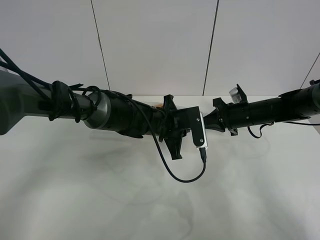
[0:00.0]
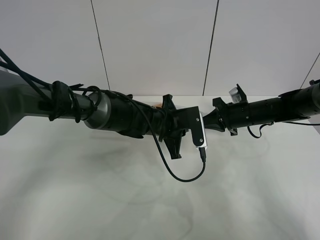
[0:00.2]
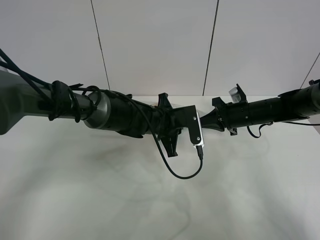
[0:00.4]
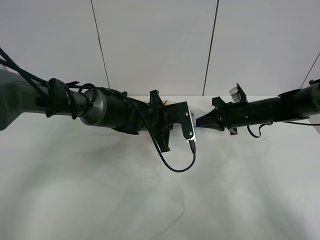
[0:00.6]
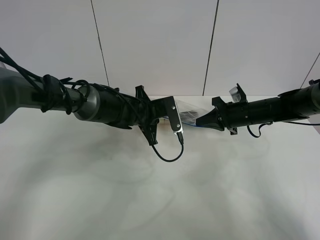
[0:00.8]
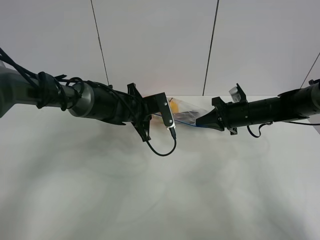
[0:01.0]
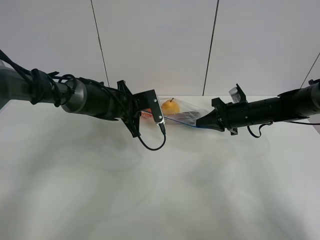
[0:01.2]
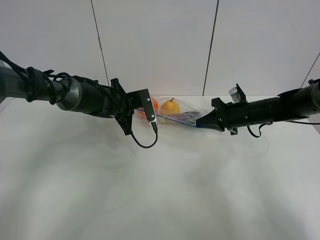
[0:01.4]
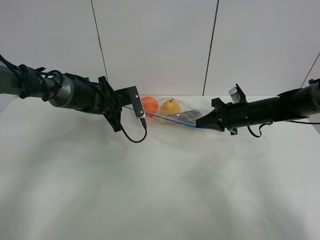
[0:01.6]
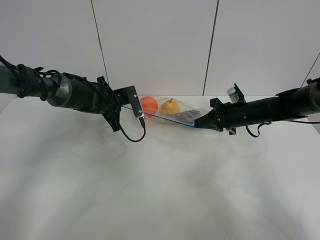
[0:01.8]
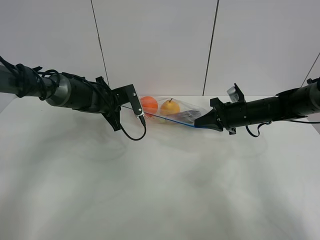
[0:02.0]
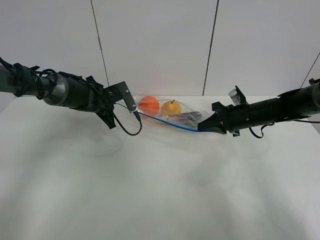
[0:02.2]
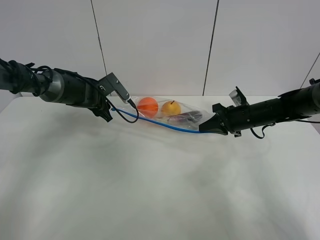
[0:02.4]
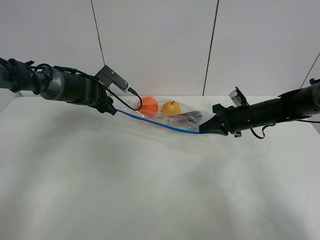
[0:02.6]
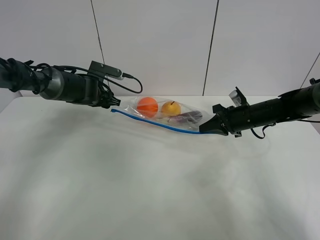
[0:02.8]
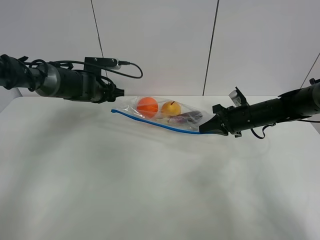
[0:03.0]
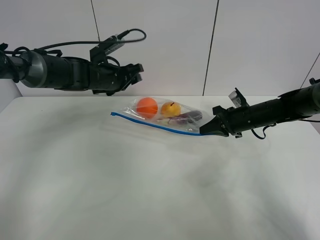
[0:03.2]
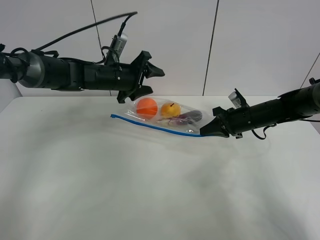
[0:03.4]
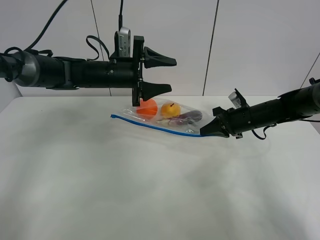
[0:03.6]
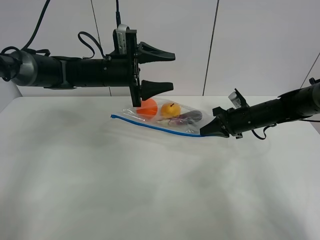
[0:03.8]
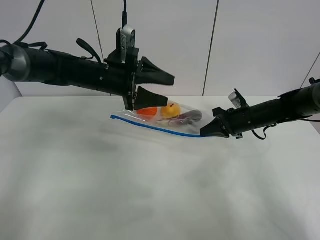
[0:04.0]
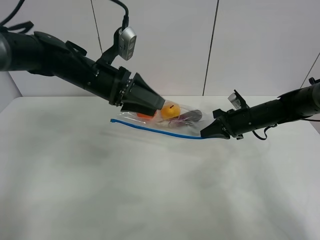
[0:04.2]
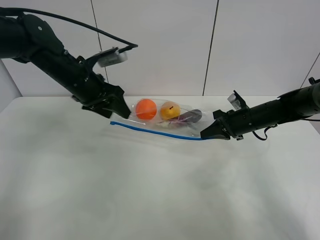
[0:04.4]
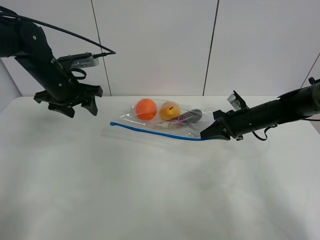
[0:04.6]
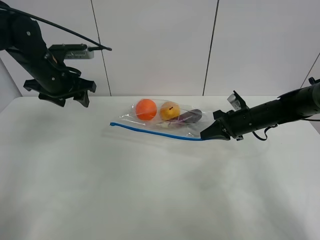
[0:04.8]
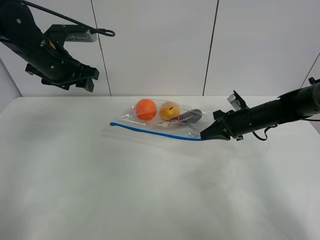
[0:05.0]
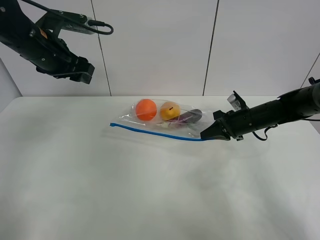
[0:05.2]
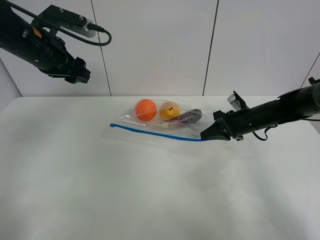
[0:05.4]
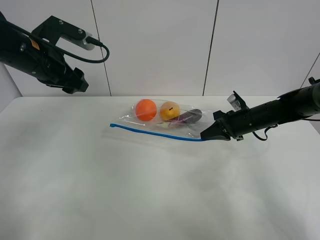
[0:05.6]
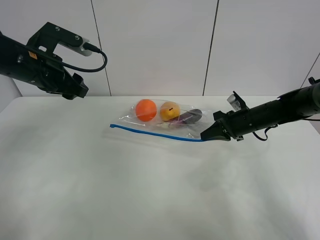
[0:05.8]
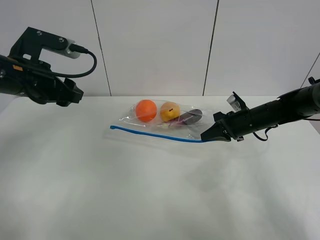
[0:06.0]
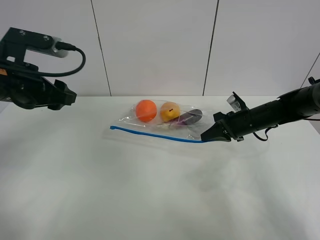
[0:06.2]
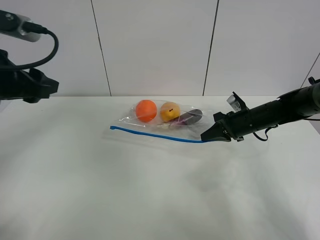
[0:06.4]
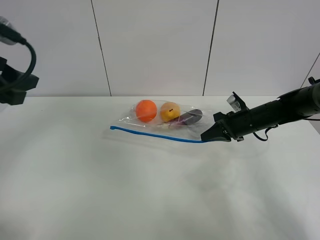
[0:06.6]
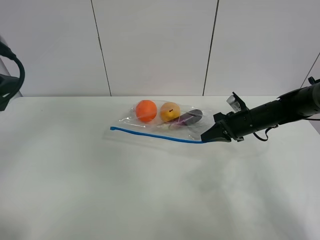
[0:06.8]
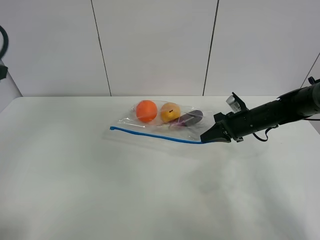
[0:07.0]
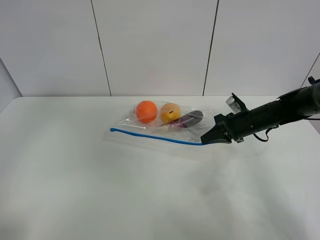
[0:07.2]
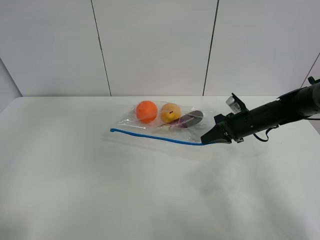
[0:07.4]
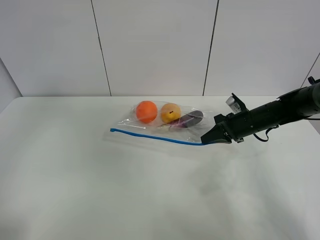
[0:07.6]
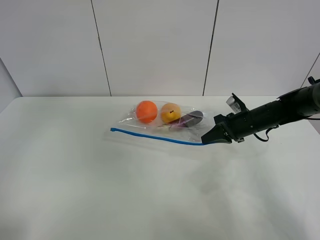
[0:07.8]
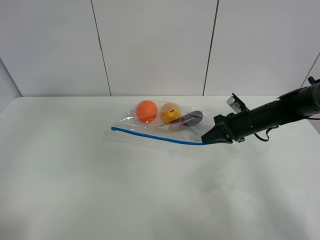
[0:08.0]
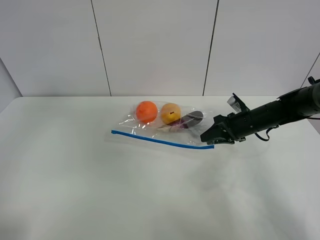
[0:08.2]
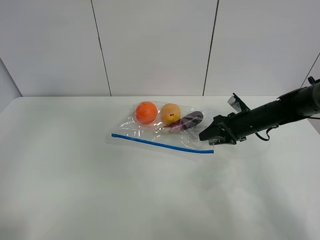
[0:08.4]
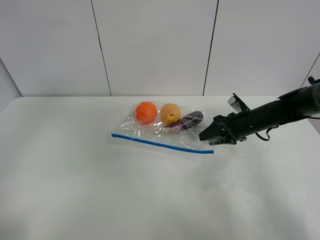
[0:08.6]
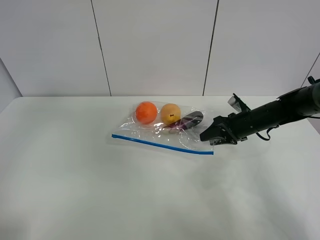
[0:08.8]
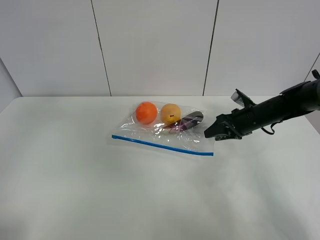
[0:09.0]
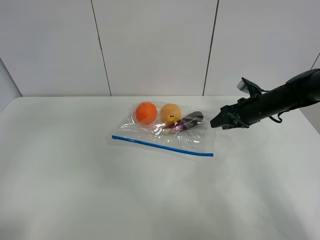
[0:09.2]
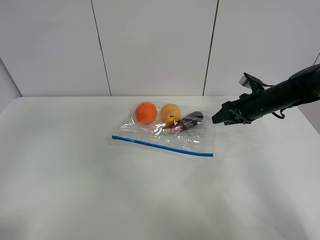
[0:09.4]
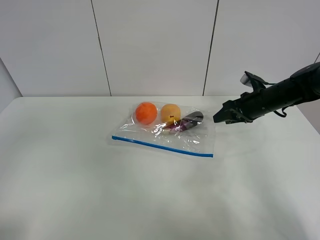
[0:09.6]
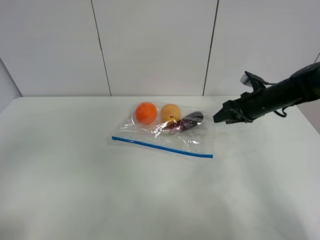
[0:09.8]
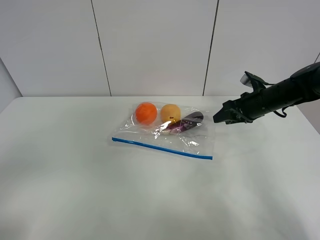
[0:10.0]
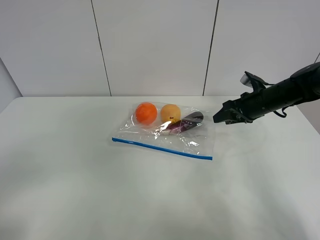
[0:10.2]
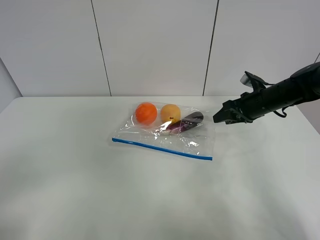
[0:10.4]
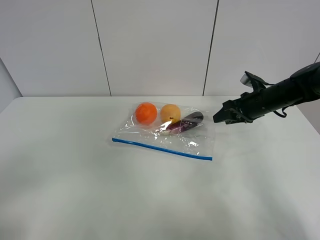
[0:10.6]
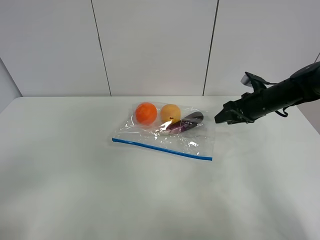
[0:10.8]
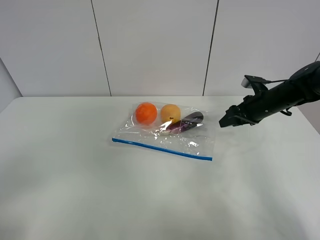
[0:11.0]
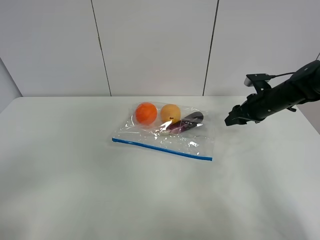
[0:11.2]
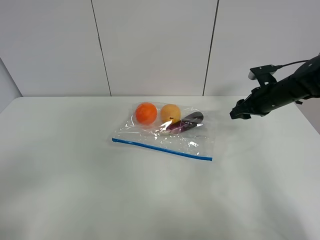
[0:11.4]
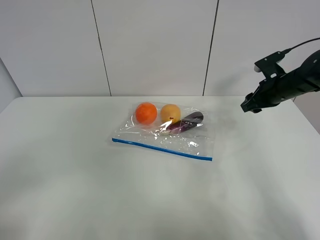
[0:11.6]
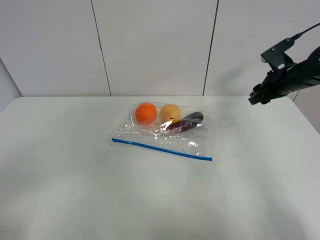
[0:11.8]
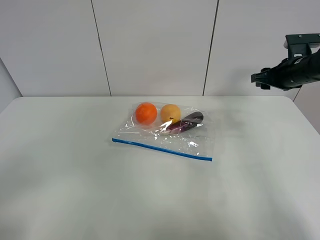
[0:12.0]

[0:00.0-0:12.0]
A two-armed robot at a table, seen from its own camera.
Step, 0:00.0 to 0:02.2: Pull the fruit bag with left gripper.
0:00.0 to 0:01.6: The left gripper goes roughly 15 cm to the left and forward.
0:01.6 to 0:03.0: The left gripper opens up.
0:03.0 to 0:04.4: The left gripper heads upward and backward, covering roughly 10 cm.
0:04.4 to 0:06.0: The left gripper shifts roughly 10 cm backward.
0:06.0 to 0:07.6: The left gripper is displaced backward, to the left and upward by about 15 cm.
0:07.6 to 0:09.0: The right gripper opens up.
0:09.0 to 0:10.4: The left gripper travels backward and downward by roughly 20 cm.
0:10.4 to 0:12.0: The right gripper moves upward and to the right, roughly 10 cm.

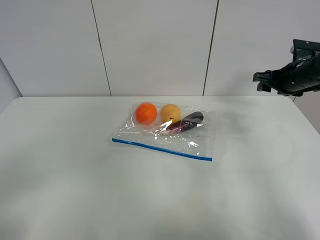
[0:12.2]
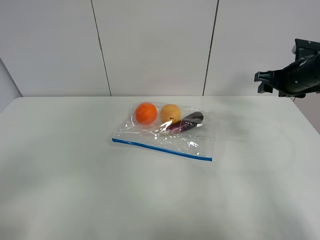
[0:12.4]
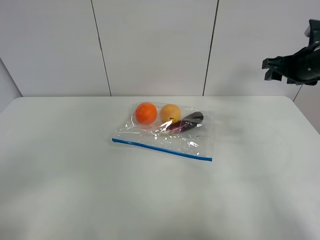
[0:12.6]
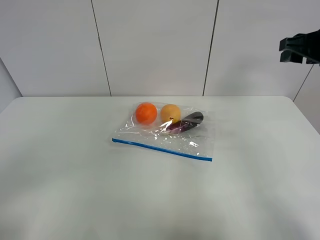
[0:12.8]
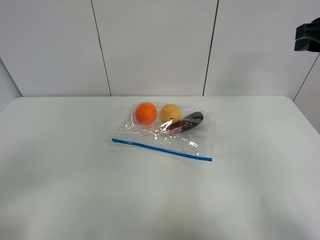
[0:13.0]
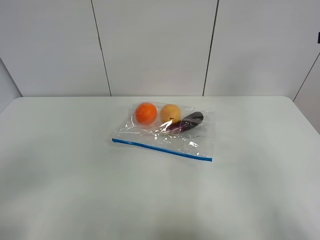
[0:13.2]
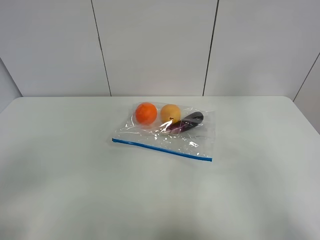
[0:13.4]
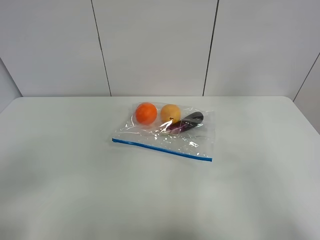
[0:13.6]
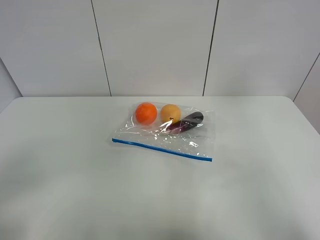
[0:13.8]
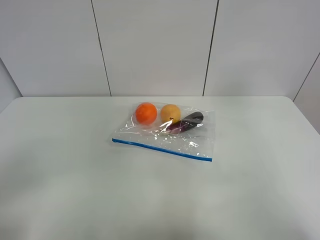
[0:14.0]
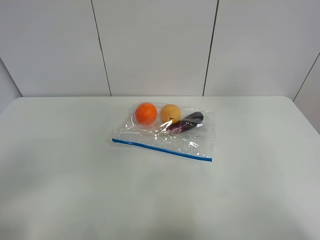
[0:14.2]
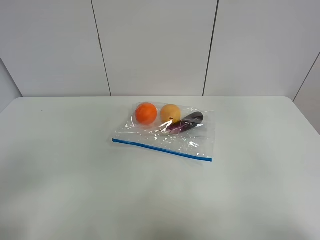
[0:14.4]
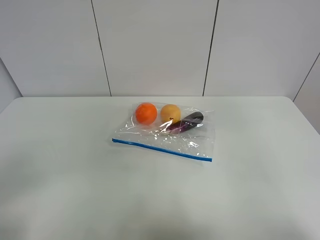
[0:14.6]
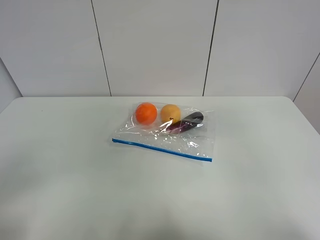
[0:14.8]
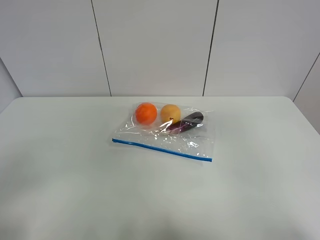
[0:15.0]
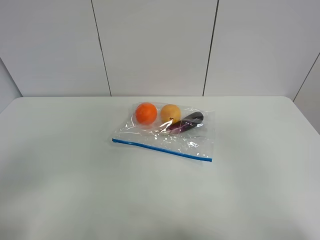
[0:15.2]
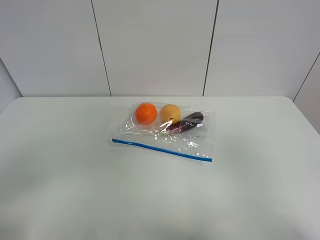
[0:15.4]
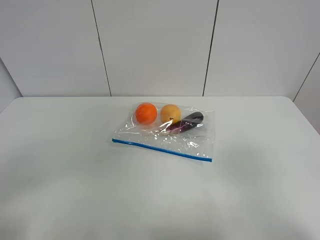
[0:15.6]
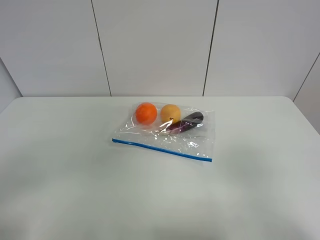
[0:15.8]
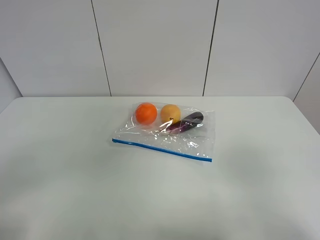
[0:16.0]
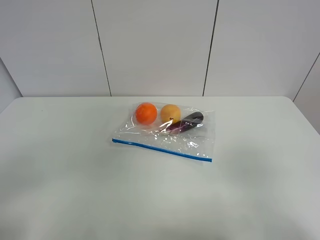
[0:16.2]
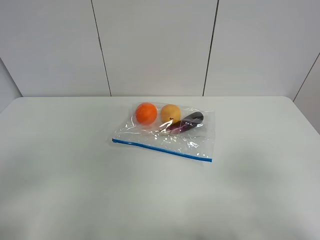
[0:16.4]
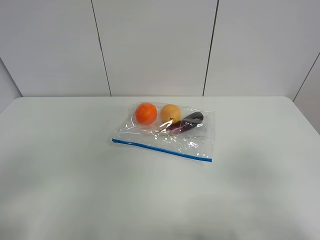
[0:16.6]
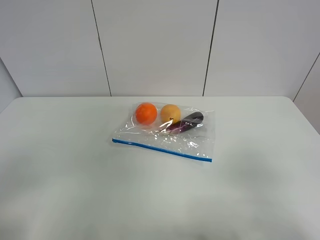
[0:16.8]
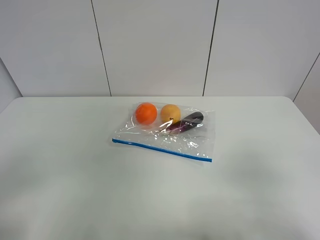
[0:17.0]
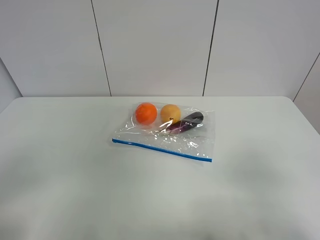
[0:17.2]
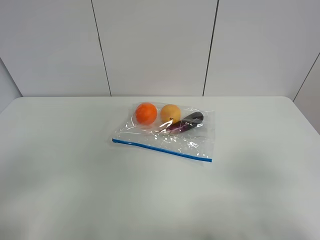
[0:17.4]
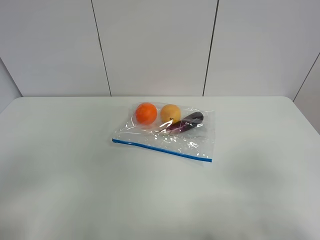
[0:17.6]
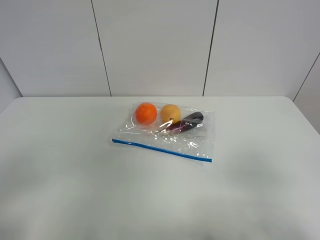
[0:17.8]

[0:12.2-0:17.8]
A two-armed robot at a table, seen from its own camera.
0:12.2 to 0:13.6: The right gripper goes roughly 25 cm upward and backward.
0:16.4 to 0:17.8: The two grippers keep their place.

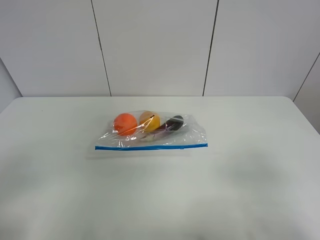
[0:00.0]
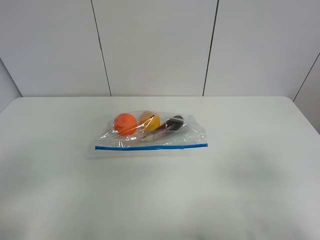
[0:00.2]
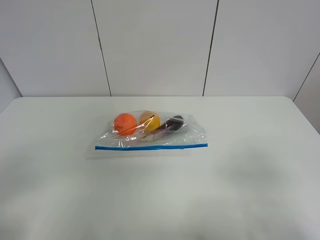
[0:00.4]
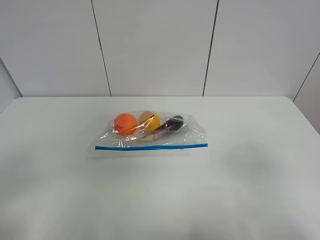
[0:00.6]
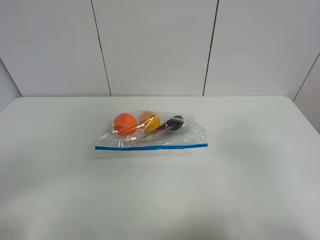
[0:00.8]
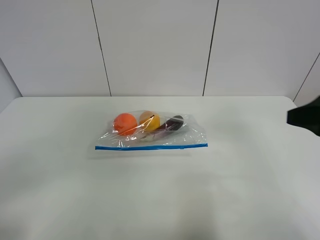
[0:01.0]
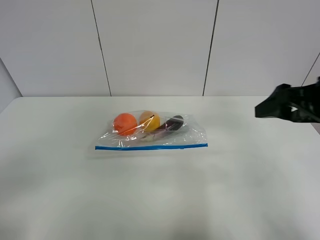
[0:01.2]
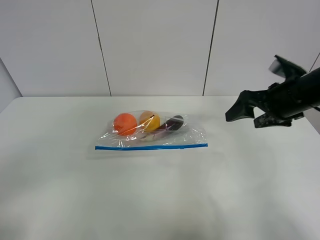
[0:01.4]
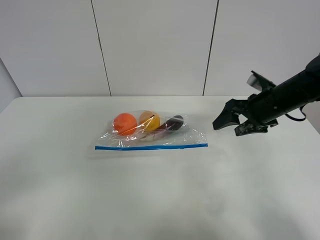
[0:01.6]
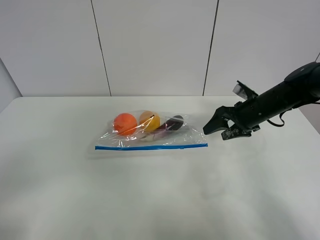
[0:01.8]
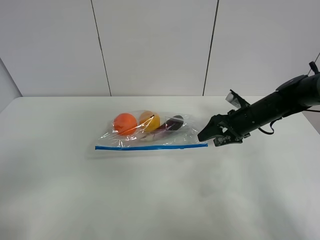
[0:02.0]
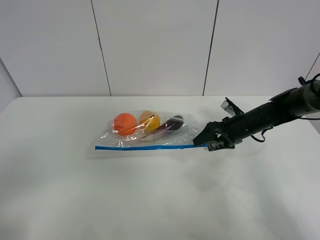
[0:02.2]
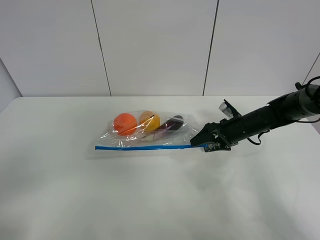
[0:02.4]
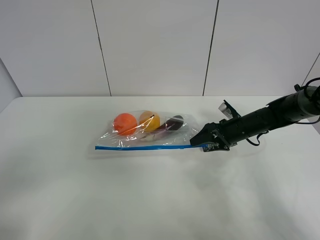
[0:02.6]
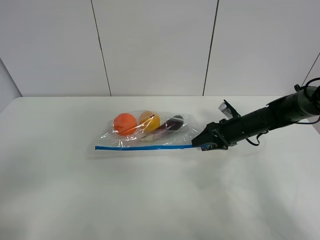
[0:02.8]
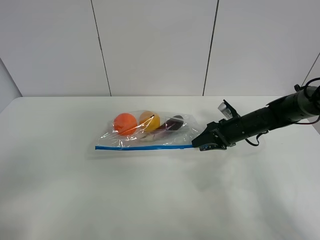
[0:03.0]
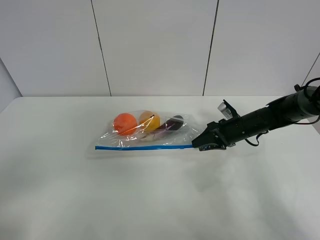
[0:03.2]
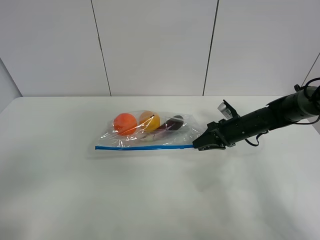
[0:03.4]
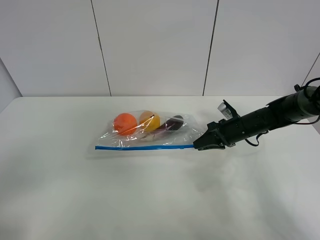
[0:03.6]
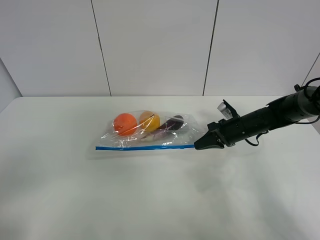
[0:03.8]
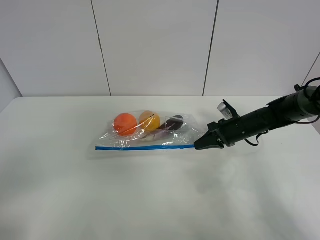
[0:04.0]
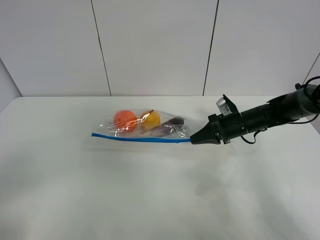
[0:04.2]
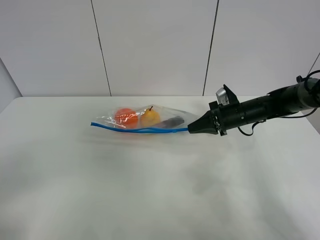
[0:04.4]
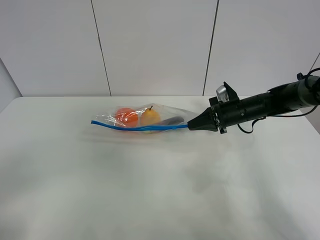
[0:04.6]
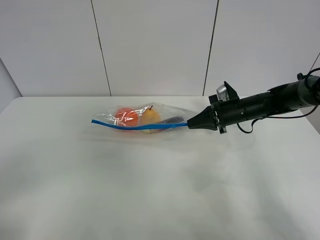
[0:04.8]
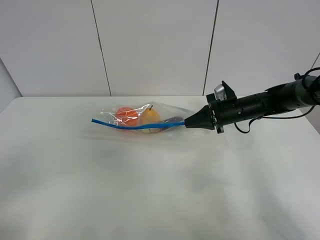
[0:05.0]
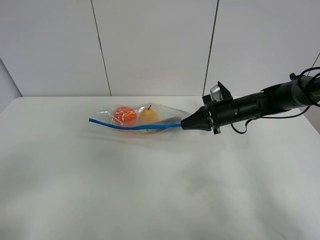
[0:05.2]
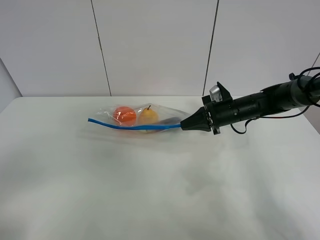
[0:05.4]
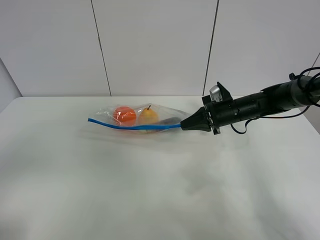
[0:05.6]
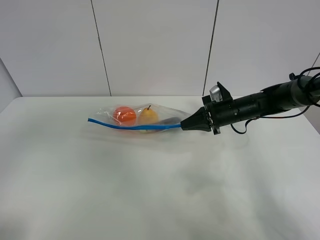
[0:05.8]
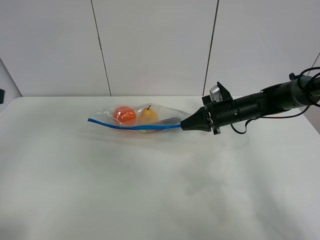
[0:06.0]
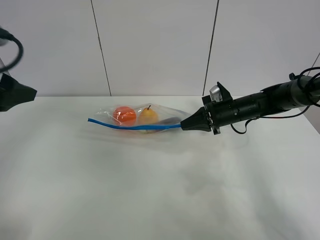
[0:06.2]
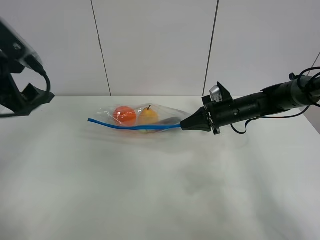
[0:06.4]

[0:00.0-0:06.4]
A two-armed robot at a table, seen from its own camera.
Step, 0:00.0 to 0:03.8: Grasp the fruit bag with right gripper.
Step, 0:04.0 to 0:05.4: Lift the fruit bag with your right gripper.
0:00.0 to 0:01.6: The right gripper moves forward, roughly 35 cm.
0:01.6 to 0:03.2: The right gripper goes about 10 cm downward, and closes up.
0:03.2 to 0:04.8: The right gripper closes.
0:04.8 to 0:06.4: The left gripper shifts roughly 25 cm forward.
